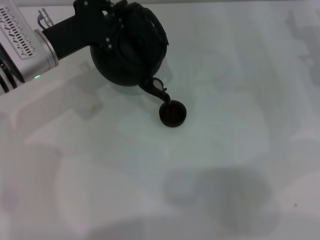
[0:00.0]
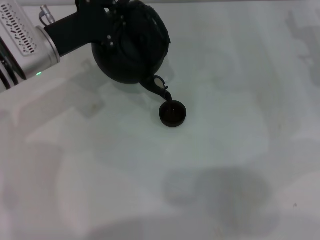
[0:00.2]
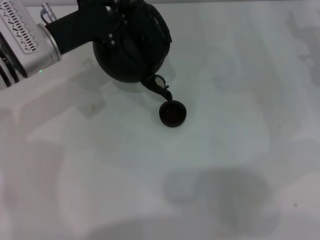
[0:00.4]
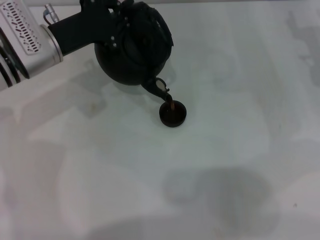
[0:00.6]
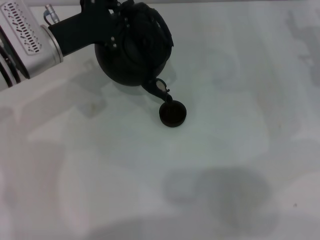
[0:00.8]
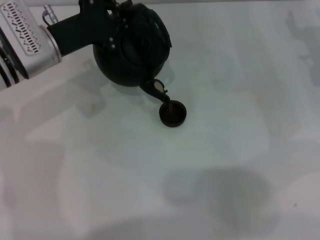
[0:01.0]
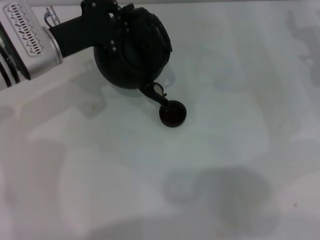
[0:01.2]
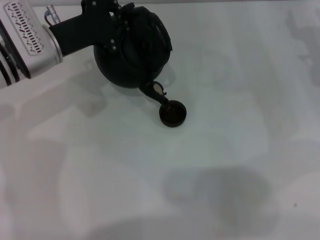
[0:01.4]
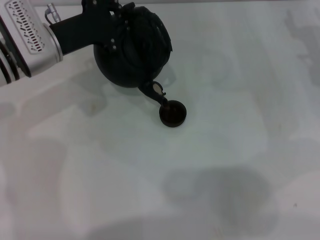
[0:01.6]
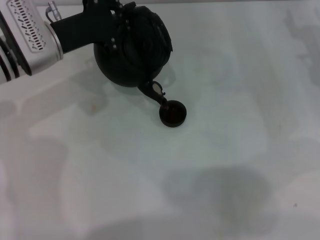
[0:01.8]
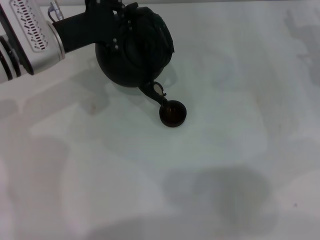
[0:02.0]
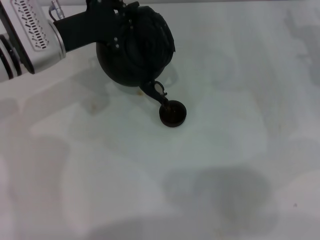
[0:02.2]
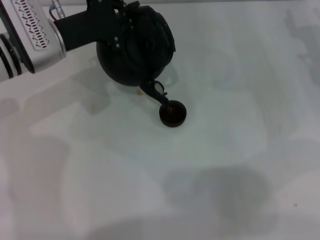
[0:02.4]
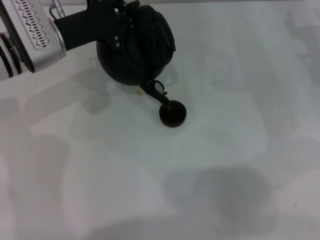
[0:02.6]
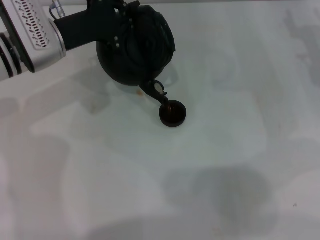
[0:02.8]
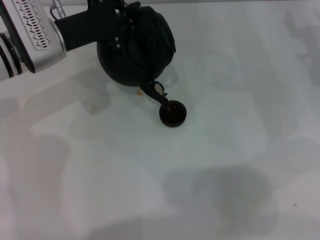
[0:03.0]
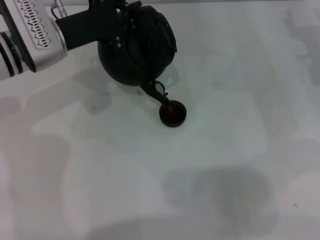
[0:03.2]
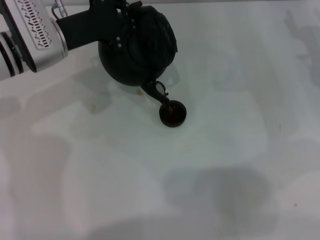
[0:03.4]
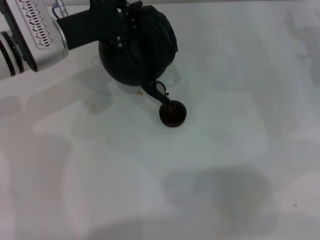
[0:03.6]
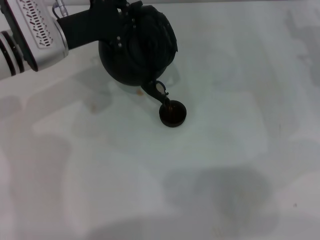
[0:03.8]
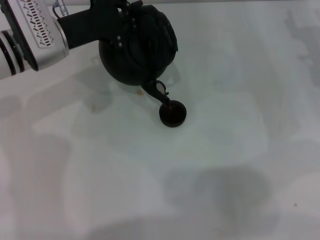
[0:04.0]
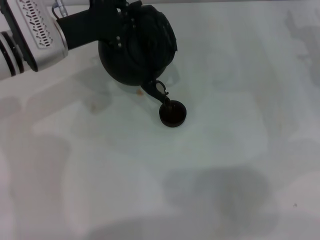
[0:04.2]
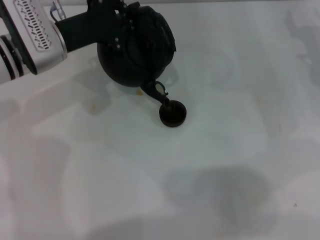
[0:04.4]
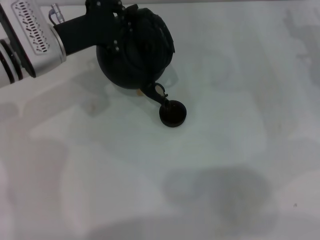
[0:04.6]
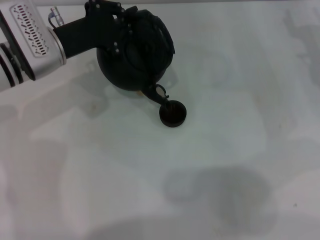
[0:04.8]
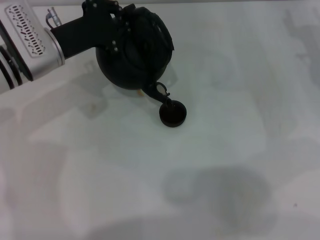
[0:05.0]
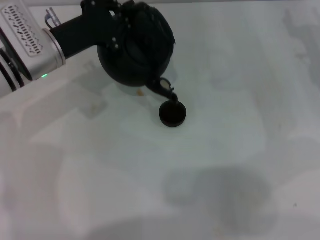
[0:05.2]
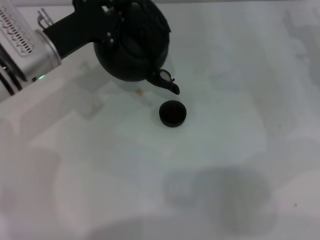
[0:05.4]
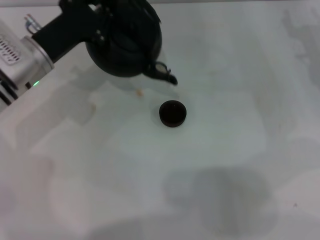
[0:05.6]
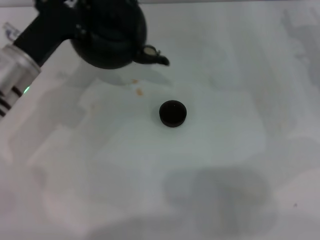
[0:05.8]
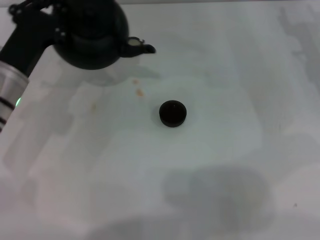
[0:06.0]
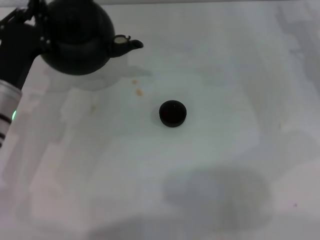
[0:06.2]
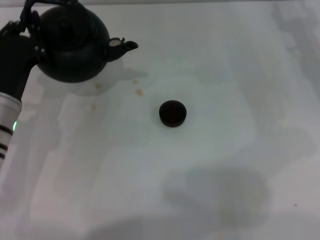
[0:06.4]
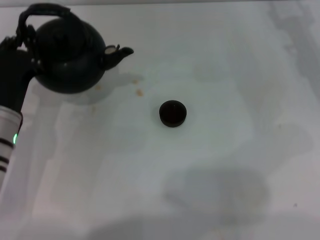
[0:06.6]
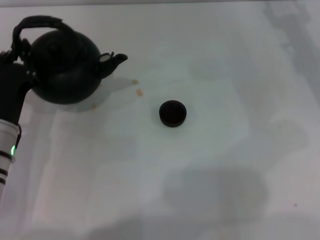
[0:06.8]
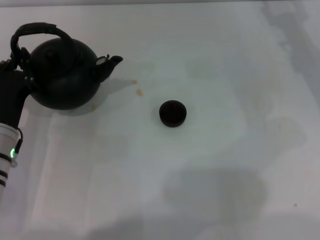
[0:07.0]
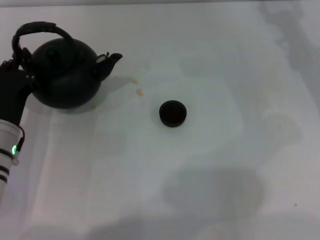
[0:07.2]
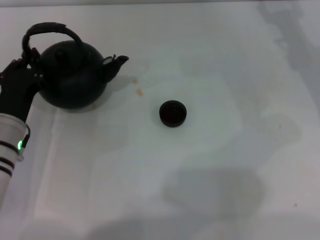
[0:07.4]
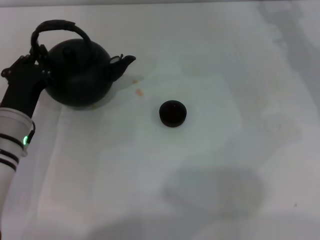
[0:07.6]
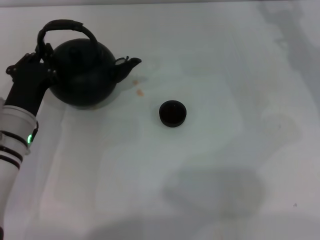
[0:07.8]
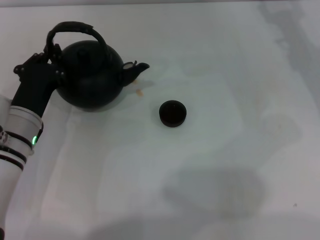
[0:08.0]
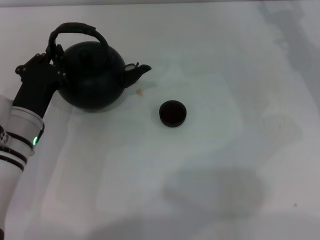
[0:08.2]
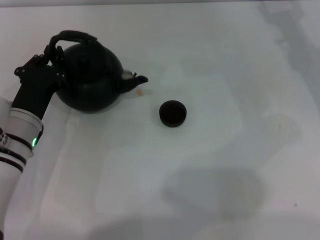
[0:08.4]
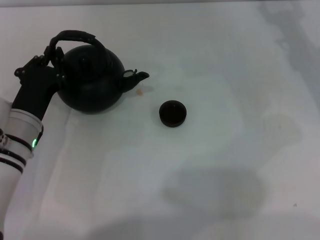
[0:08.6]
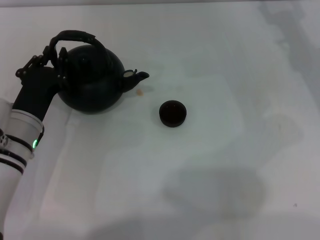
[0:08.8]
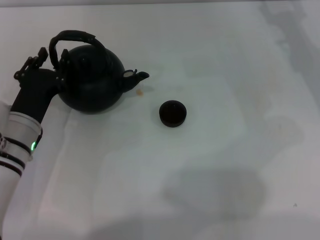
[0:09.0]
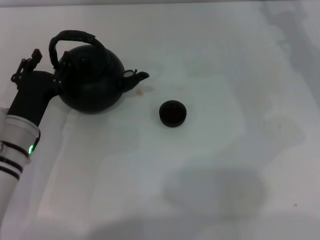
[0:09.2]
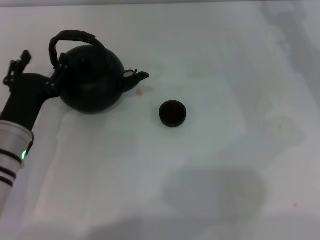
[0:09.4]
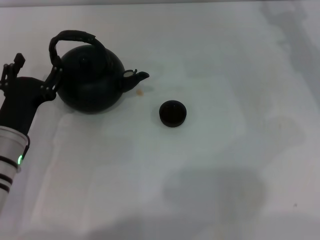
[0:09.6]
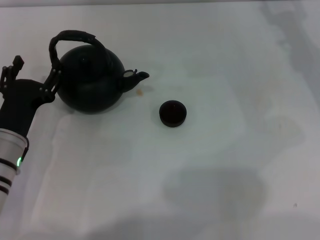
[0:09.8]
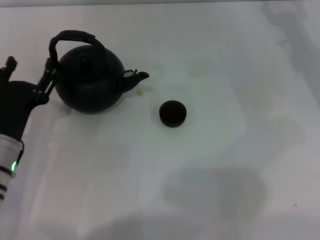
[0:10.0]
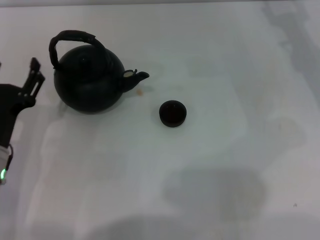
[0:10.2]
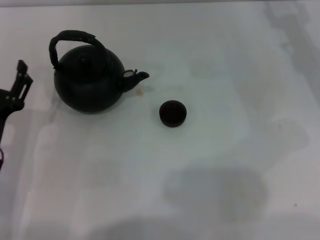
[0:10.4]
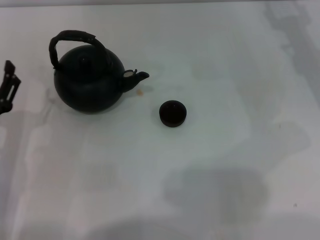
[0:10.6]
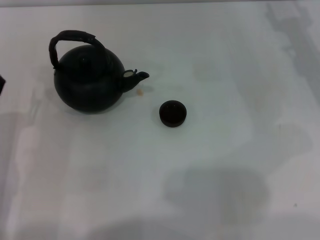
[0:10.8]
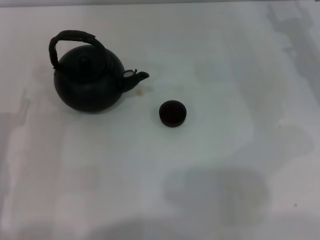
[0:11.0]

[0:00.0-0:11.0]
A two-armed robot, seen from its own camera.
Task of the whole recording: Grasp the handle of the teapot with one hand and pour tea into the teacup.
Step, 0.0 to 5.4 s: Pour tea into the teacup with the left gripper.
Step, 5.6 to 10.0 s: Put down the teapot with the left gripper.
0.0 to 1.6 s: The grippers stay close to where they were, moving slightly.
1.6 to 4.8 s: The two grippers keep their place.
4.8 to 6.2 s: The left gripper heads backward, covering some 10 cm.
7.8 to 9.4 s: The left gripper opens up.
9.4 to 11.0 s: The left gripper moves to the left and backward, some 10 cm.

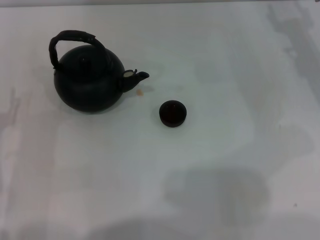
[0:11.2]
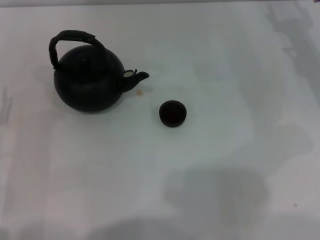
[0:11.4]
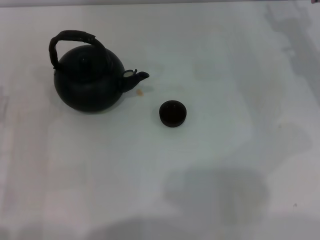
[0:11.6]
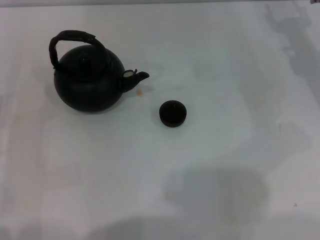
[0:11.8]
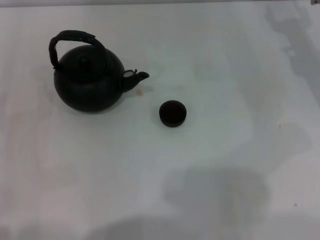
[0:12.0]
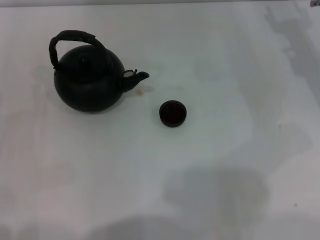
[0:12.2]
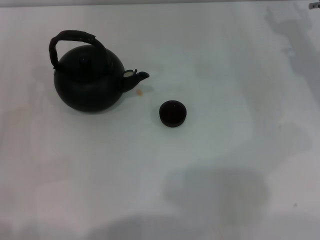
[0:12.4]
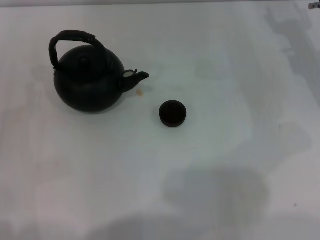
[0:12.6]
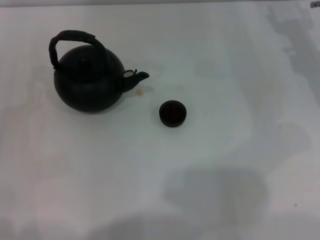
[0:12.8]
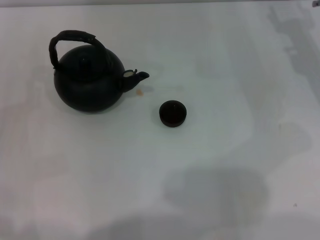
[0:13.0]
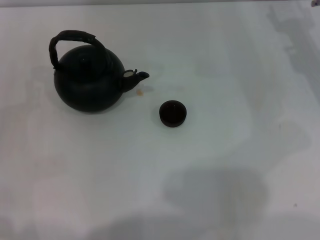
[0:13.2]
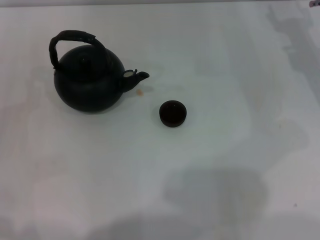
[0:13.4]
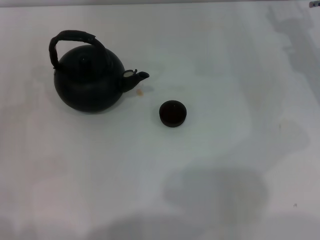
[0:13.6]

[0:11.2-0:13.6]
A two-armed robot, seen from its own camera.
Task of the whole recording: Grasp the handle of the teapot with one hand and pour tea into the teacup.
12.4 to 13.6 s: Both grippers stay put.

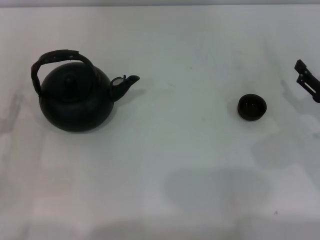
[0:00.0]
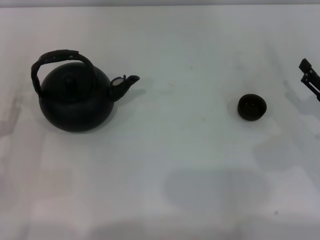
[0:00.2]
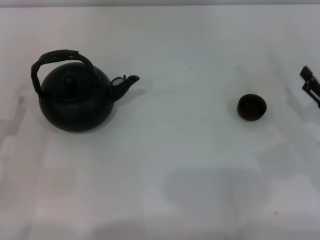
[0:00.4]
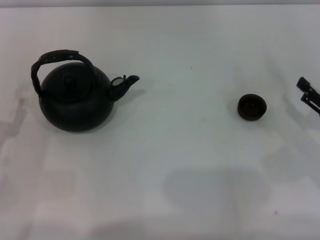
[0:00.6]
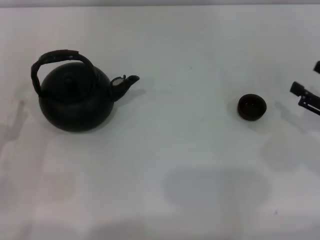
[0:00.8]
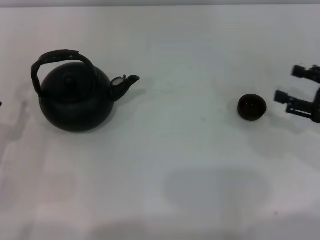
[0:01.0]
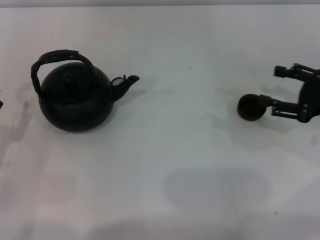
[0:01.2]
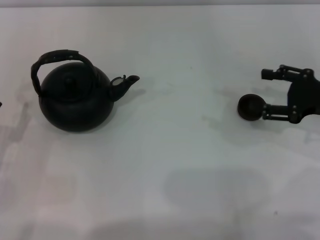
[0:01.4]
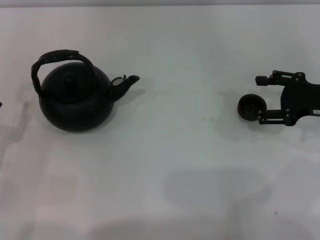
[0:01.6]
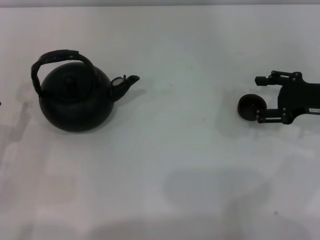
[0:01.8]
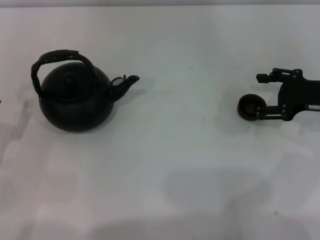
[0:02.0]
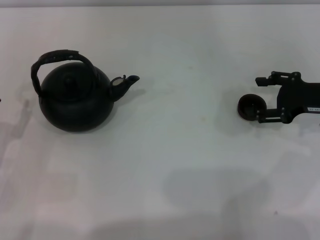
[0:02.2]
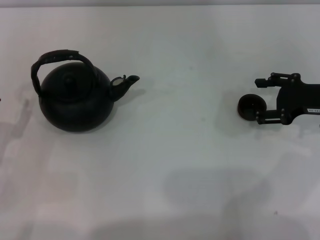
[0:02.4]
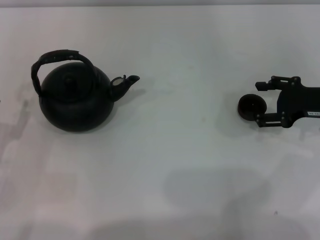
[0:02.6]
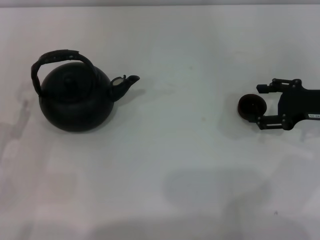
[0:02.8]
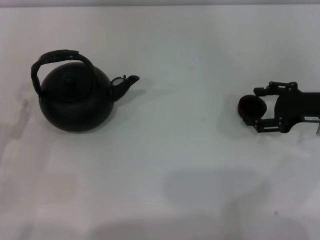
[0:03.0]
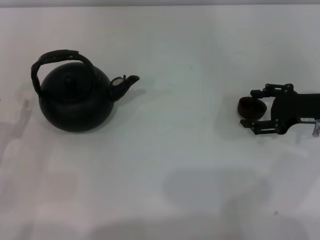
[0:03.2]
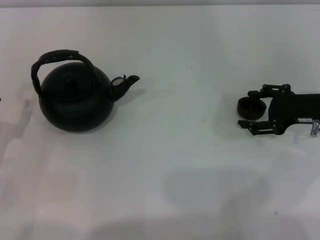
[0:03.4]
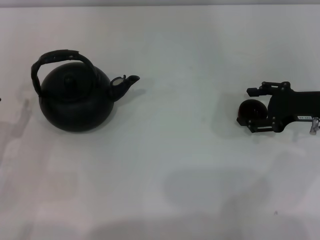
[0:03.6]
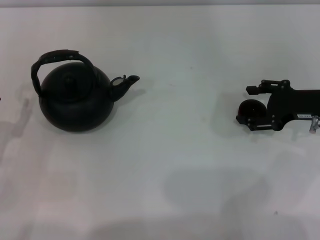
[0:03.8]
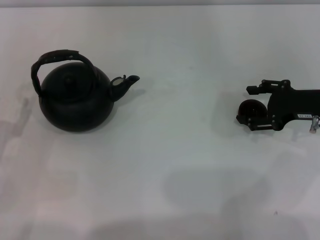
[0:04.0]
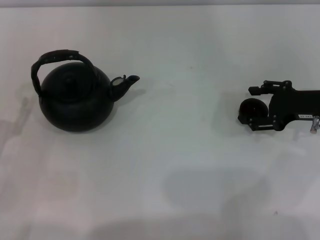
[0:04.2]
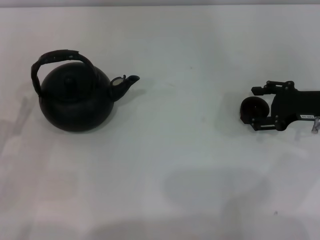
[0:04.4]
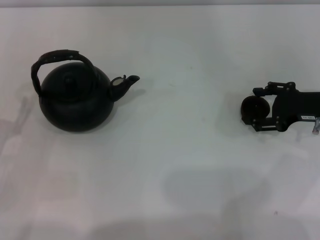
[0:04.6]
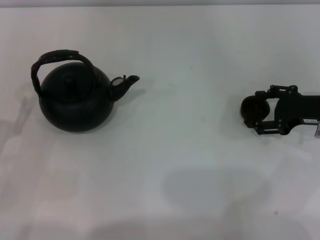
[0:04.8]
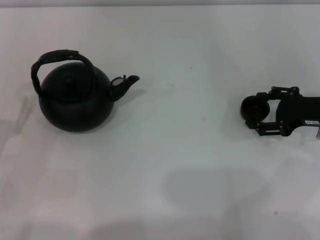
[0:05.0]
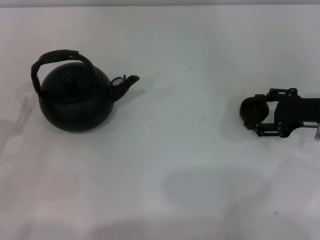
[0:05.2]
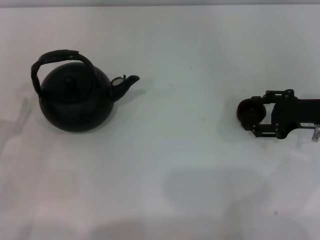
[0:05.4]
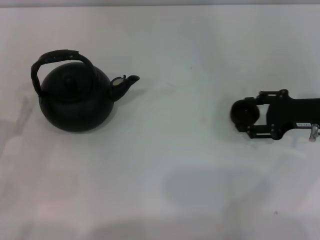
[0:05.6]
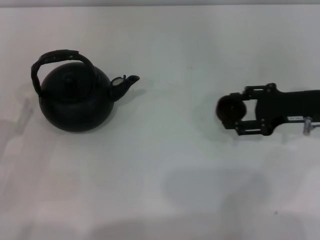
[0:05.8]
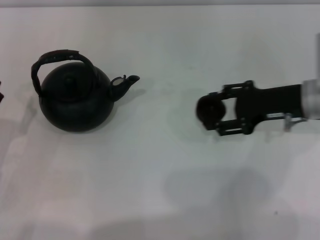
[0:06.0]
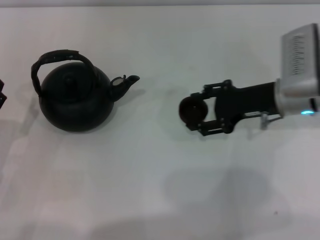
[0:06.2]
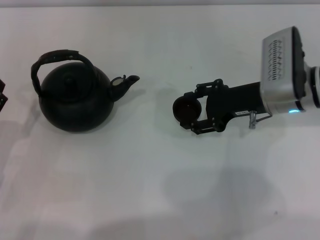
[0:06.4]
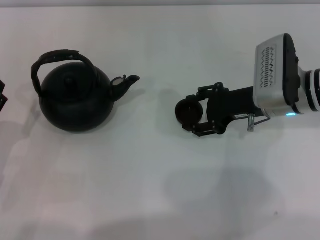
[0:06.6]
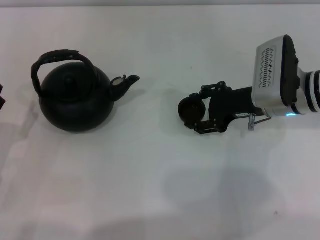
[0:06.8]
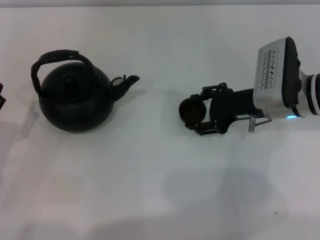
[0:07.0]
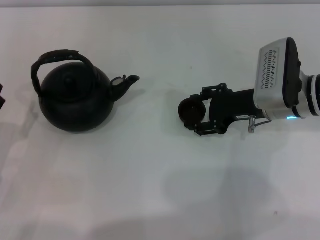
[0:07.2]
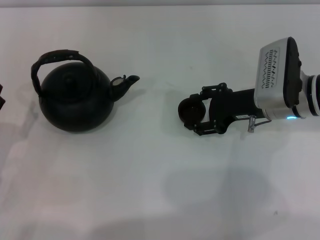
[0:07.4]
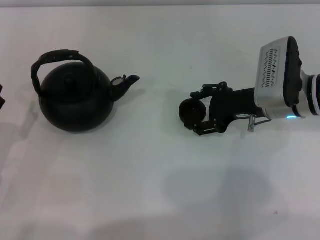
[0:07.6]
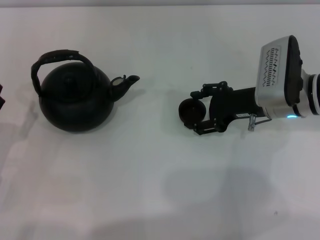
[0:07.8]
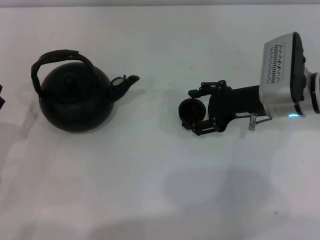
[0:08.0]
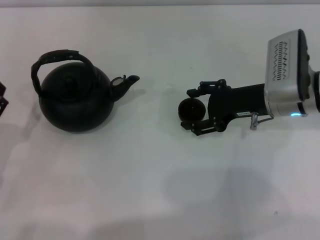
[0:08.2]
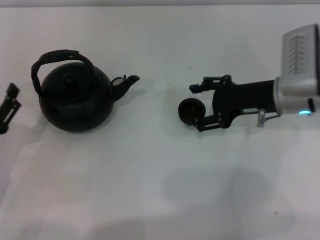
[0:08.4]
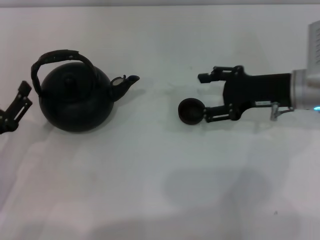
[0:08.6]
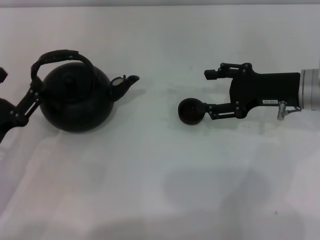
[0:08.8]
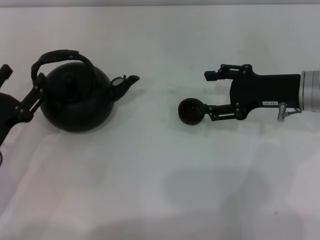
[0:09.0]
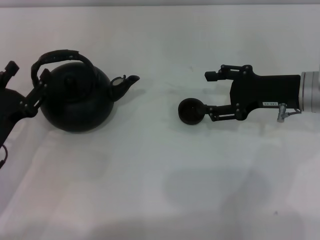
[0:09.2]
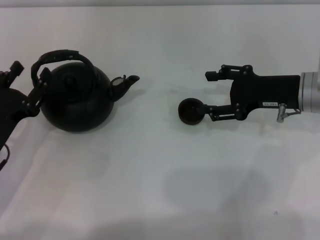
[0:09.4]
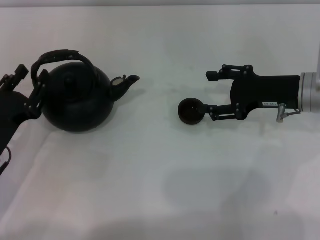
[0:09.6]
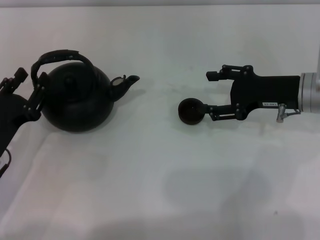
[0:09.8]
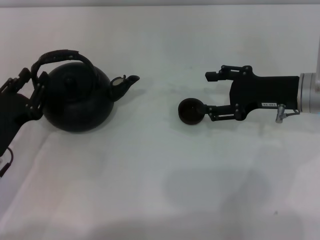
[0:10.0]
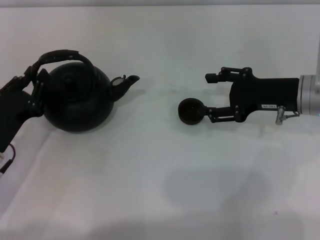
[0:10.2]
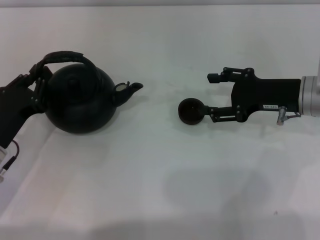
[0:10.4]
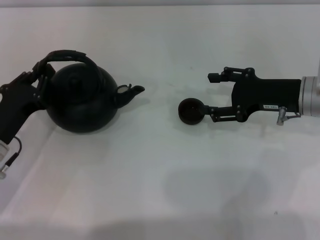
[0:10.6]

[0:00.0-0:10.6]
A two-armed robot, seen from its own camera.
Task of the whole recording: Grasp the handle of the teapot with one hand and pour tea into the teacup.
Step, 0.0 to 5.6 s: Pick up the teacup with the right gripper.
Step, 6.0 to 8.6 s: Place the teacup in the center of view with the right gripper.
0.0 to 1.6 s: The right gripper moves forward and upward, roughly 10 cm.
1.6 to 3.0 s: There are only small adjustments of the grippers.
3.0 to 4.6 s: Neither gripper changes place.
4.6 to 6.0 s: The right gripper heads to the left, covering approximately 5 cm.
6.0 to 7.6 s: The right gripper moves approximately 5 cm.
7.6 to 9.0 s: The right gripper shifts by approximately 5 cm.
9.0 to 10.6 s: The left gripper closes up.
